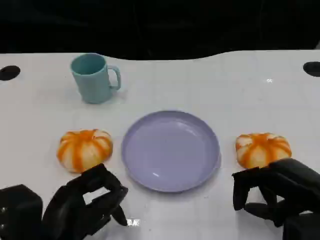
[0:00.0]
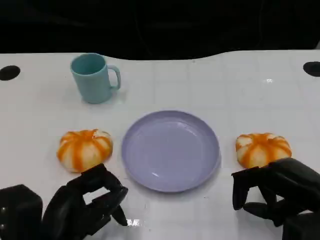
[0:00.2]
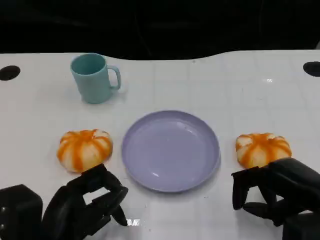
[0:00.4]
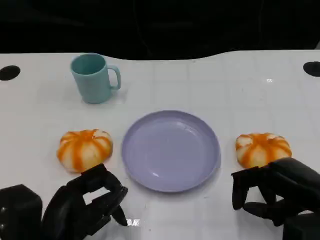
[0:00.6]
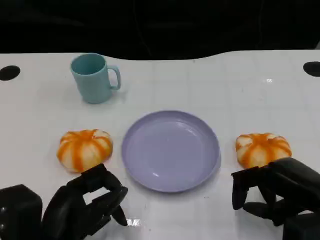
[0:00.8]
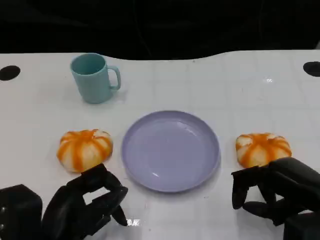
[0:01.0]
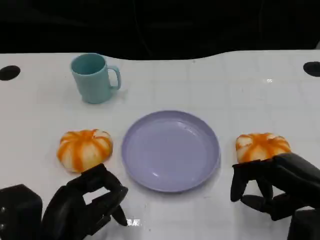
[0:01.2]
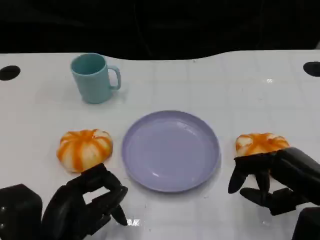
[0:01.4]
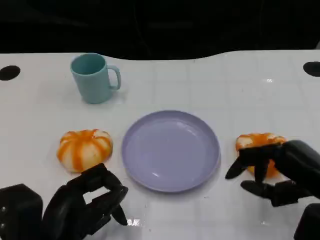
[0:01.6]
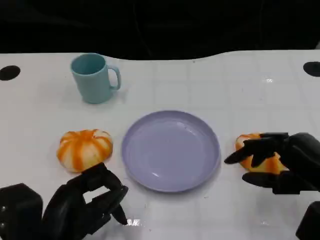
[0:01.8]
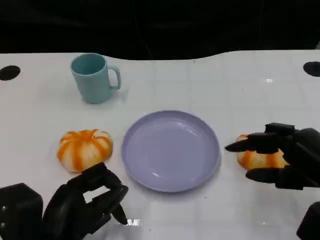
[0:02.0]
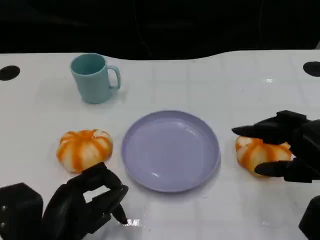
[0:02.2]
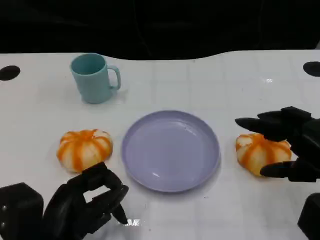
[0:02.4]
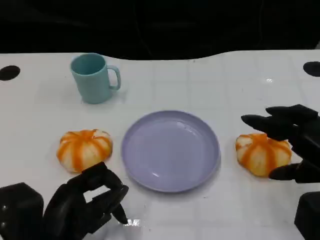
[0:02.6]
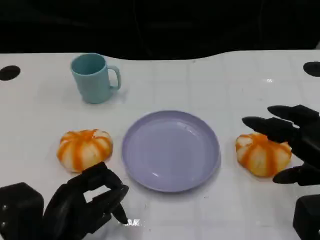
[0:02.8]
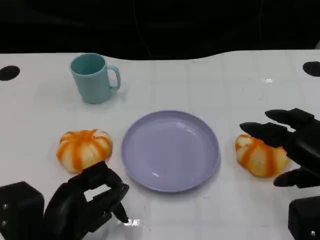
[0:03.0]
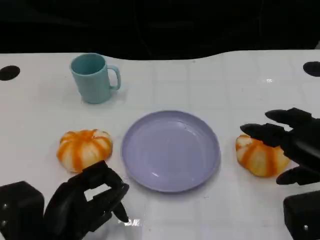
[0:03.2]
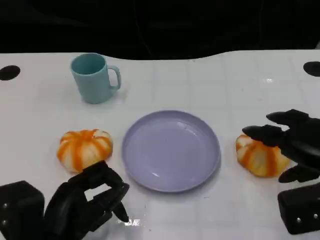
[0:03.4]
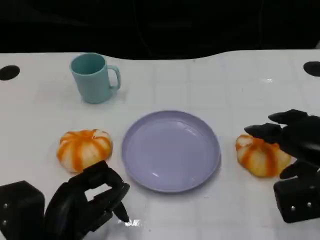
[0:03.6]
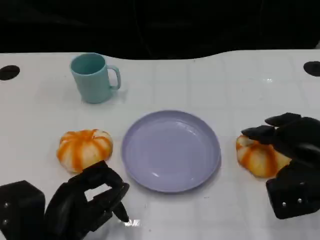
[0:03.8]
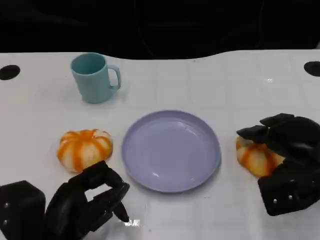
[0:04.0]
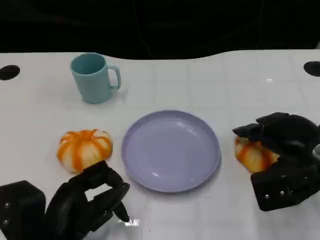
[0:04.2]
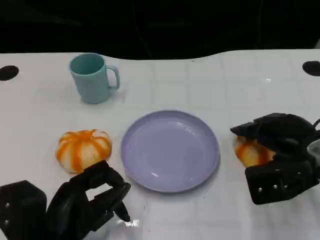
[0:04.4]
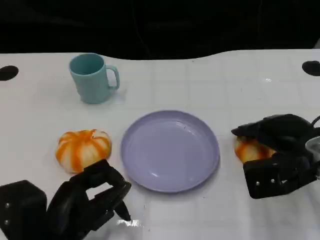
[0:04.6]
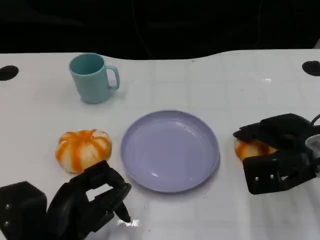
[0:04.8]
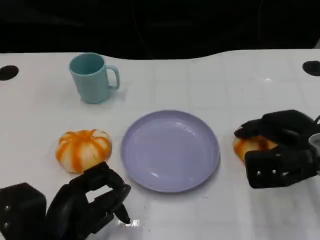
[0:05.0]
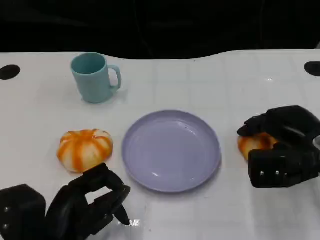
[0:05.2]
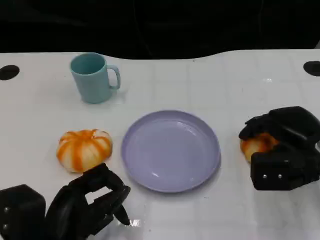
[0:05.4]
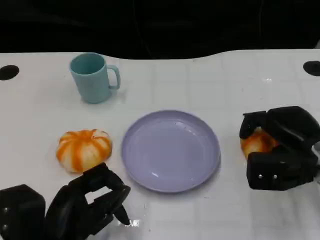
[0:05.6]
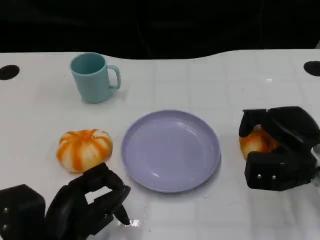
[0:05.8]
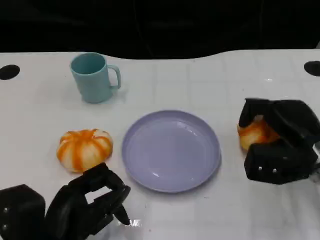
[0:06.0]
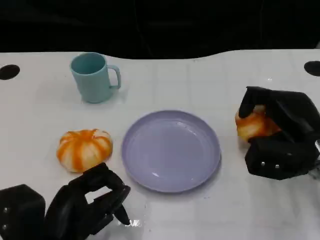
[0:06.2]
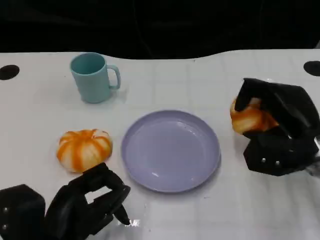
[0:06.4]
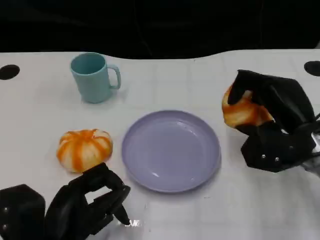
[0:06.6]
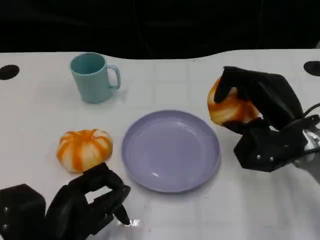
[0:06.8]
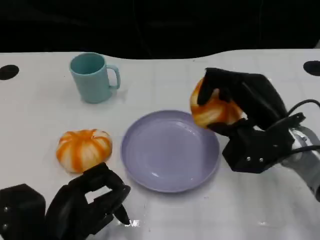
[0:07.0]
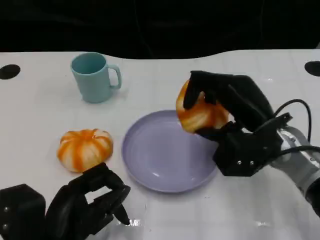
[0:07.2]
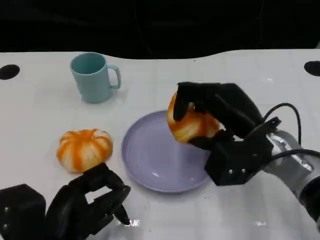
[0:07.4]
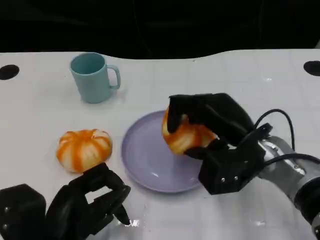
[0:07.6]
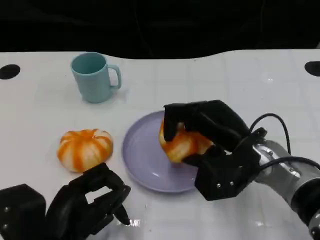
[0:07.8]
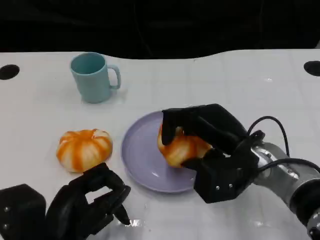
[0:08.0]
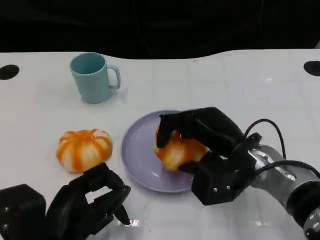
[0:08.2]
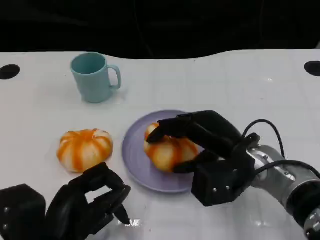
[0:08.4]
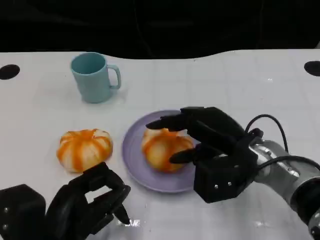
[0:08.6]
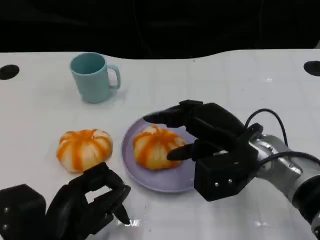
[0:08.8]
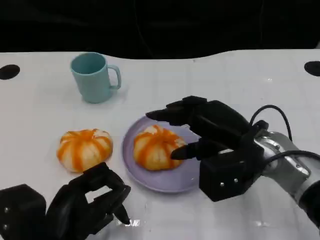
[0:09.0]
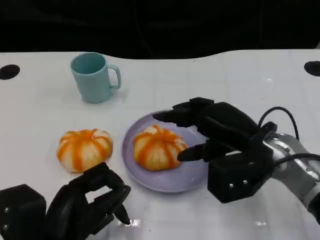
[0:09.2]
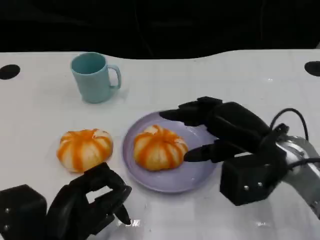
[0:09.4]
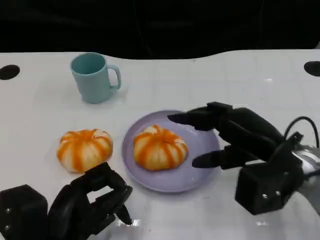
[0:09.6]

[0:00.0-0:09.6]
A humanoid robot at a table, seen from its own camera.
Task of the whole recording: Grasp the bread from the table and place it into the plate.
0:00.0 to 0:01.6: There are only small adjustments of the hands.
0:03.2 to 0:04.8: The right hand moves forward, some 5 cm.
0:06.4 to 0:08.0: The right hand is displaced to the left by approximately 10 cm.
0:08.0 to 0:09.6: The right hand goes roughly 5 cm to the right.

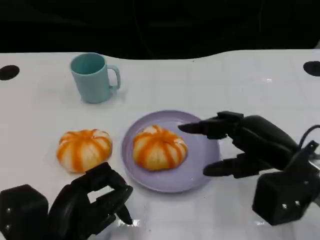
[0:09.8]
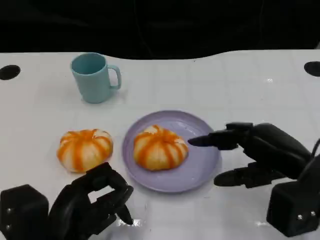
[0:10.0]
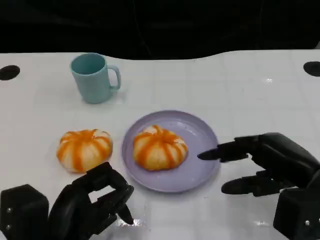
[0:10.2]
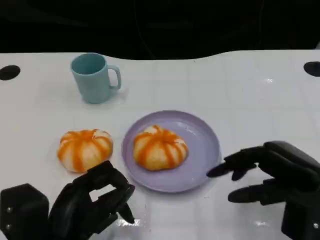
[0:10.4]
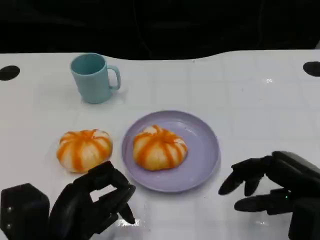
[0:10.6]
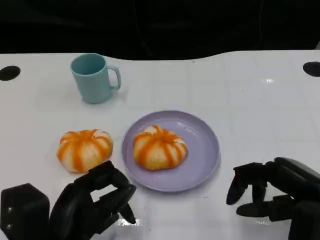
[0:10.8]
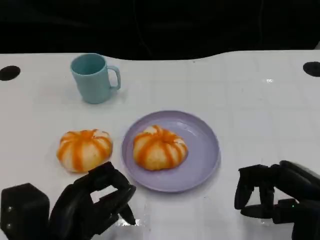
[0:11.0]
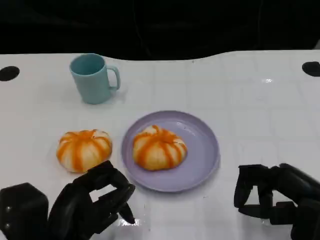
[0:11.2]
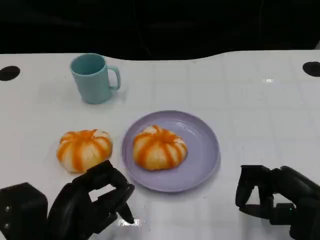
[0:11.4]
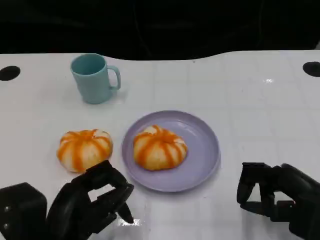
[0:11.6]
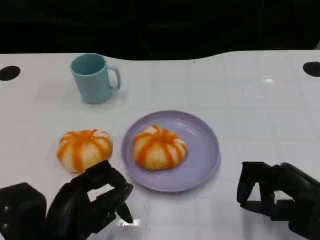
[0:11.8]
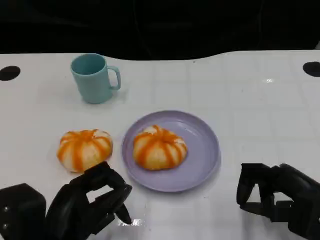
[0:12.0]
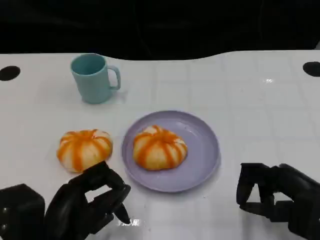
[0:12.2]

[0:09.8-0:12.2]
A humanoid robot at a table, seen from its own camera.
Task of the whole recording: Grasp the bread from the table and place it into the plate.
0:09.8 to 0:11.0: The right hand is displaced backward by some 5 cm.
0:11.0 to 0:12.2: There are only small adjustments of the hands.

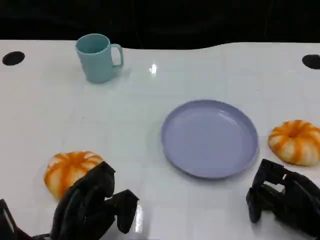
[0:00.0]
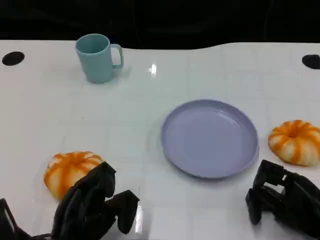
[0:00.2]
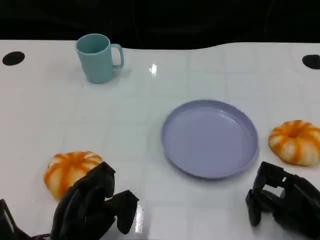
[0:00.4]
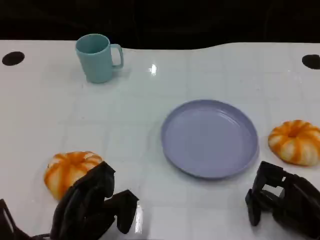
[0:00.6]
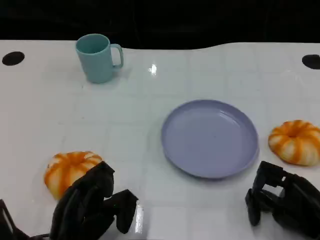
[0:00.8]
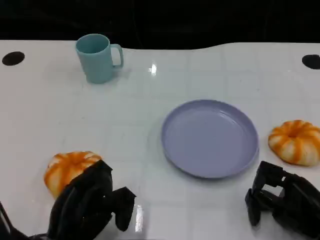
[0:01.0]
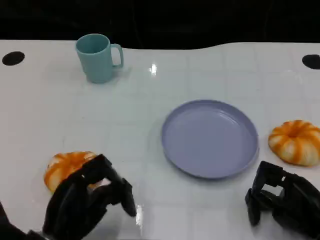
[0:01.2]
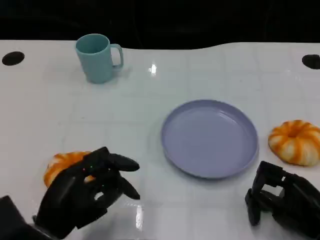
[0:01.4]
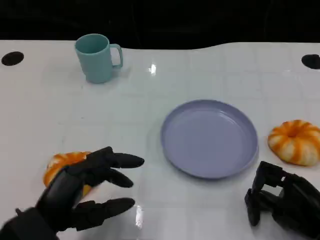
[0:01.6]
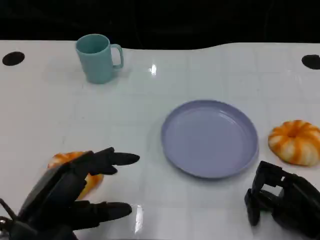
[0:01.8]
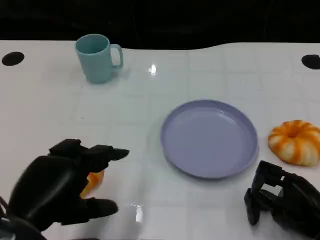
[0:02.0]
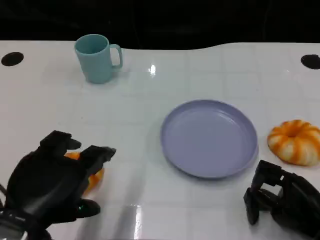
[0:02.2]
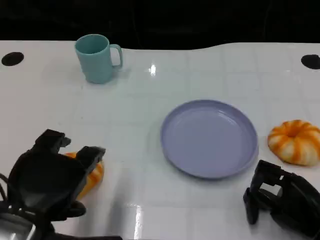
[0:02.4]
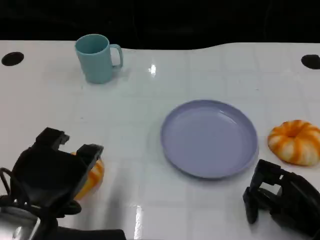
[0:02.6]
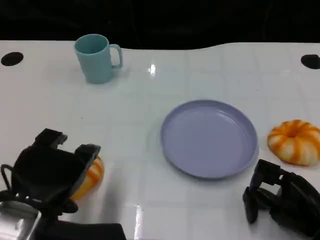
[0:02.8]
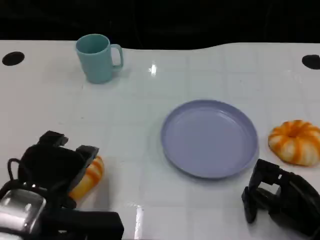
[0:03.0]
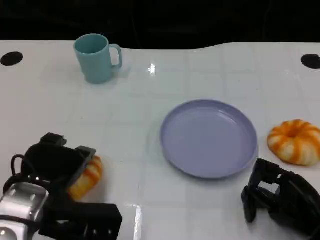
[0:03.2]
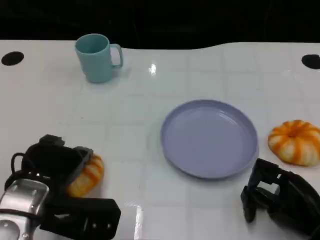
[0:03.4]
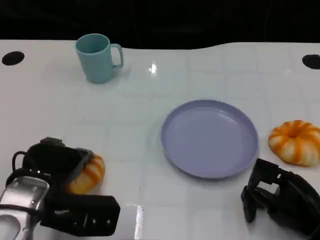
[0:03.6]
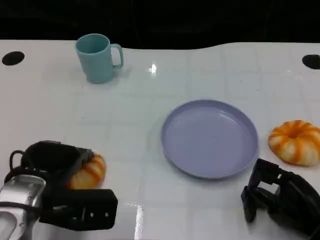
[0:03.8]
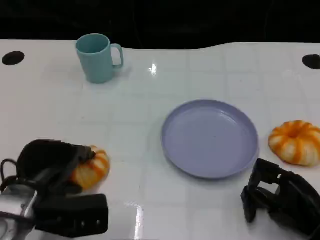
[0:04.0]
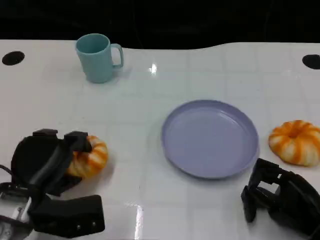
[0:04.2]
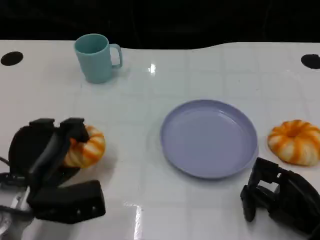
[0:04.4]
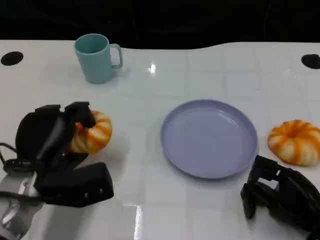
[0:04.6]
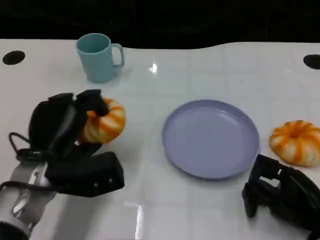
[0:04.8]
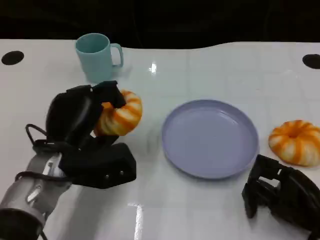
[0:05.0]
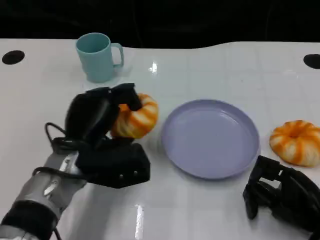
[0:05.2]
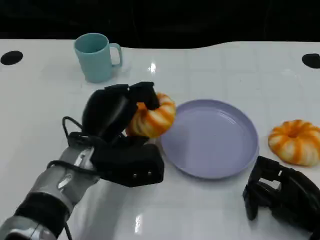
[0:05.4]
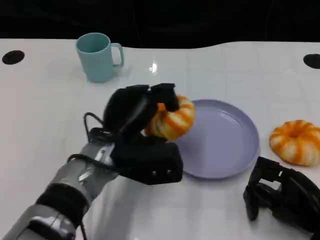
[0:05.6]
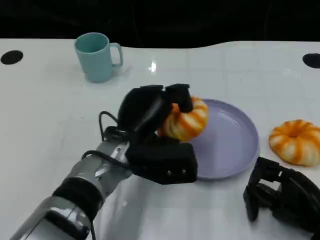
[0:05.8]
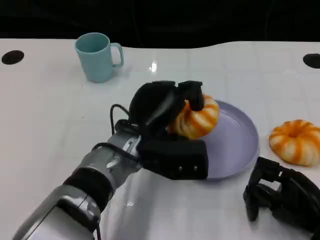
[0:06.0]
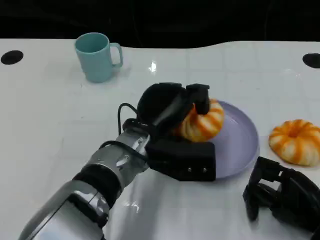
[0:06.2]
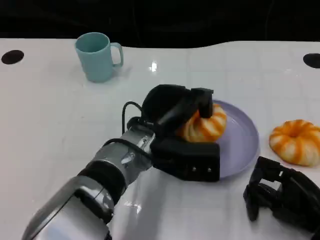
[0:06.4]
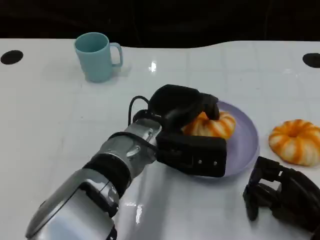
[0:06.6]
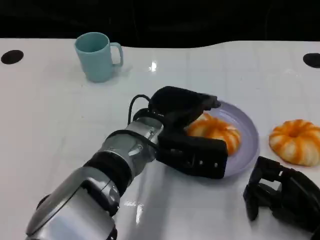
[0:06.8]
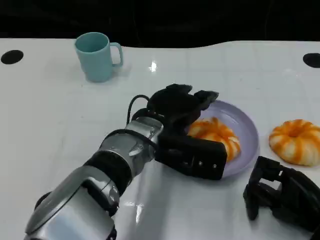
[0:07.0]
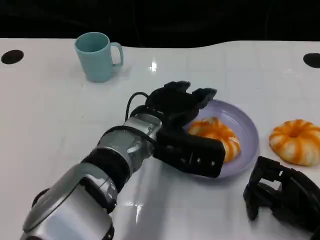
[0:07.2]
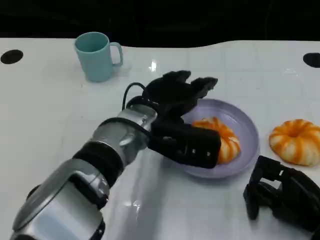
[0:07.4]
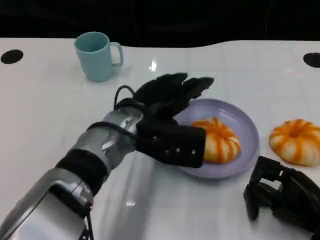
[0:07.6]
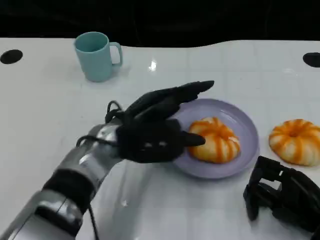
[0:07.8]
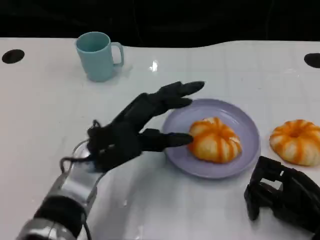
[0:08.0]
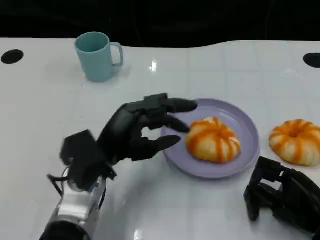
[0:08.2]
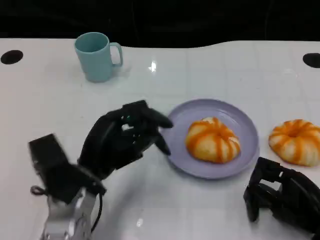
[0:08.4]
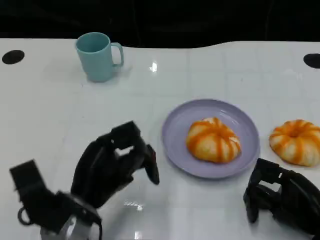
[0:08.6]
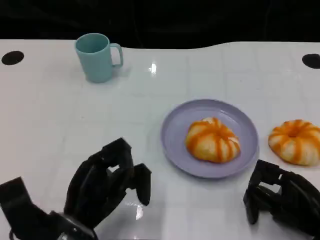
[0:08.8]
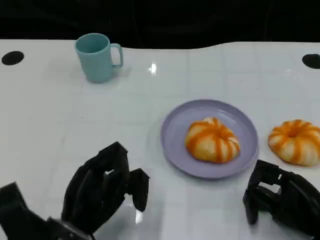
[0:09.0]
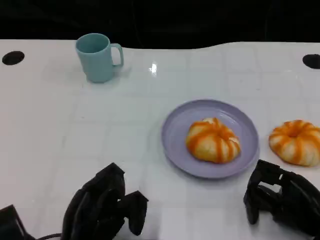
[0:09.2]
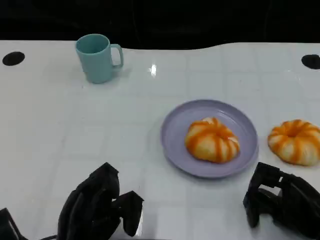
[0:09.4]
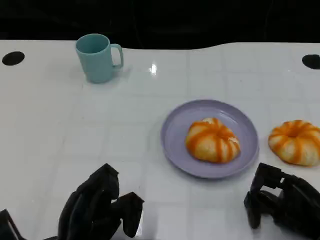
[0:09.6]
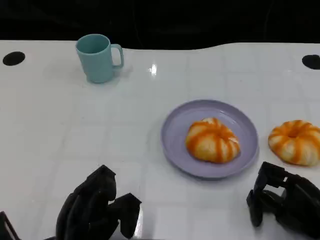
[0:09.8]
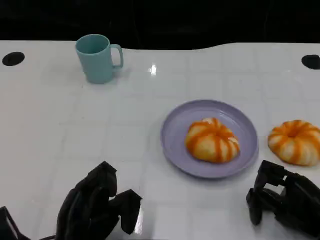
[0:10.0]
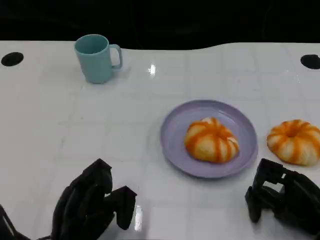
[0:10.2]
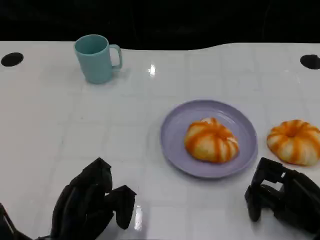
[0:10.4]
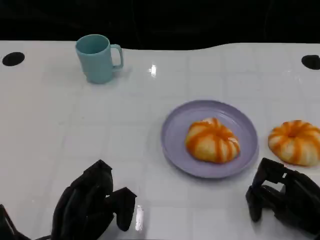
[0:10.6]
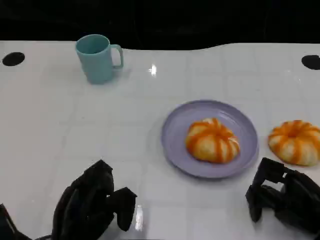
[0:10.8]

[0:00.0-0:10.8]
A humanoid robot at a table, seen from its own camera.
Task of the whole recording: Grasp the bread from the table and place it into the plate.
0:00.0 to 0:01.6: The left hand goes approximately 5 cm upward.
0:03.0 to 0:04.6: The left hand goes approximately 5 cm forward.
0:04.6 to 0:06.2: The left hand is displaced to the right by some 15 cm.
0:06.2 to 0:07.8: The left hand changes place by some 5 cm.
0:07.8 to 0:09.2: The left hand goes some 20 cm backward, downward and to the left.
0:09.2 to 0:10.8: The hands make only small movements.
